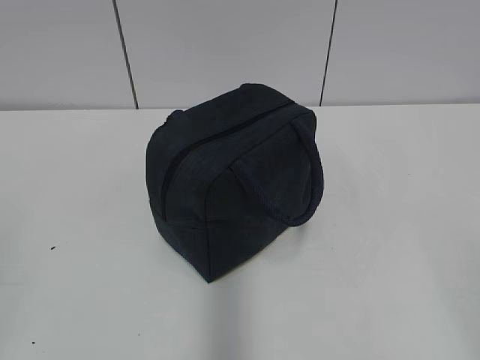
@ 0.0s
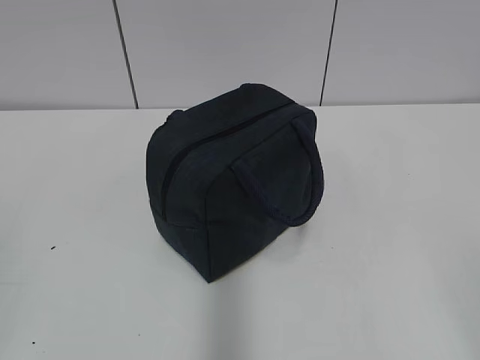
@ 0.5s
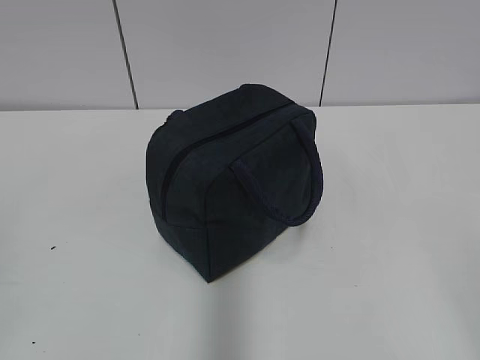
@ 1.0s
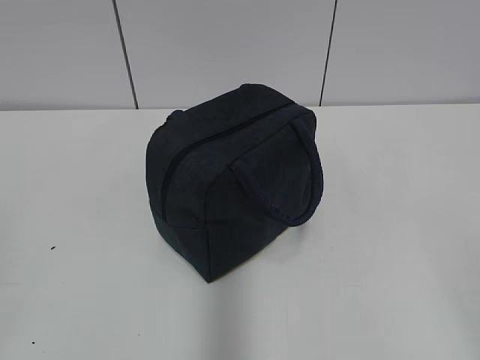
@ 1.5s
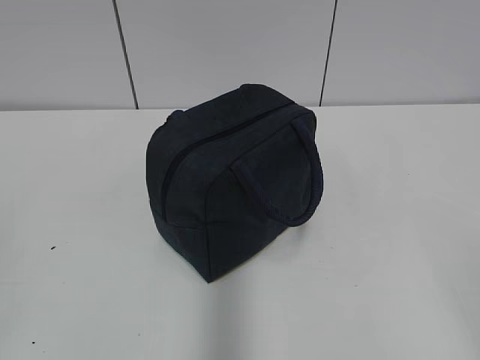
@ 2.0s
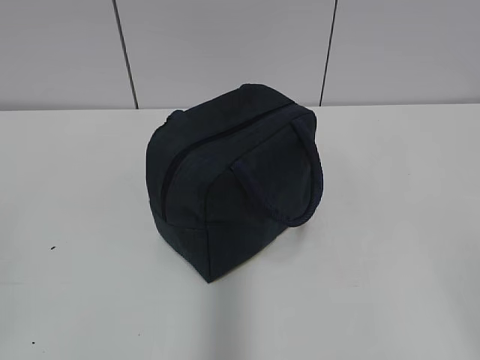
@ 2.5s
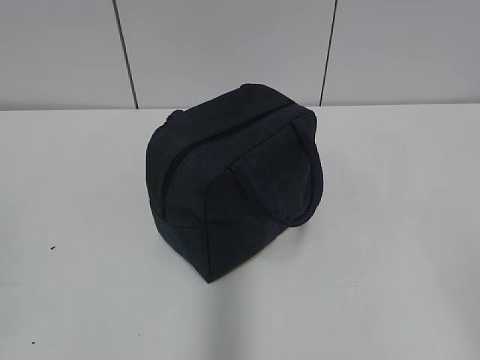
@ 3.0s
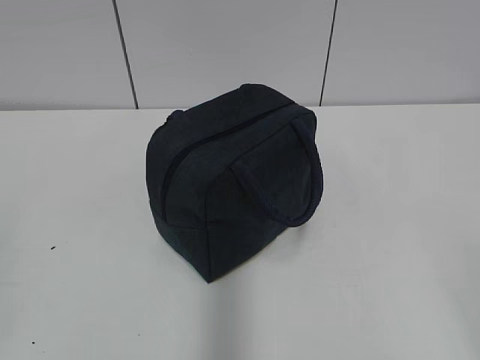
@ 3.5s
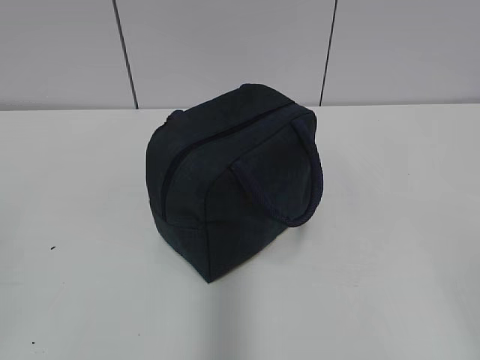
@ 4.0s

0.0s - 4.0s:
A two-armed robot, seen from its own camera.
2.0s - 4.0s: The two grippers keep their place.
